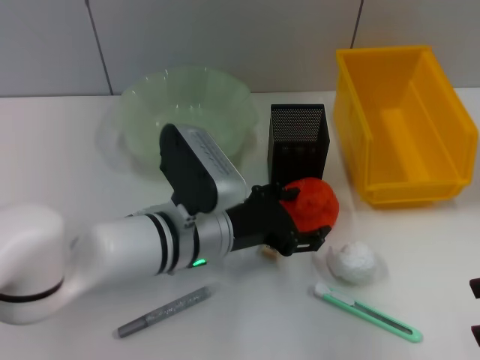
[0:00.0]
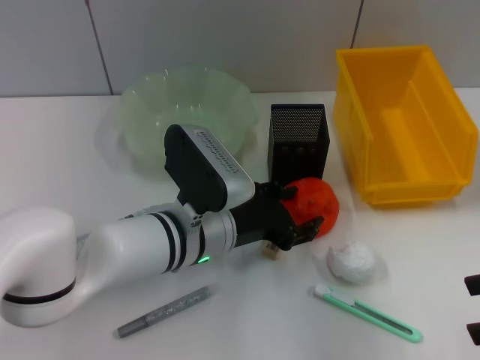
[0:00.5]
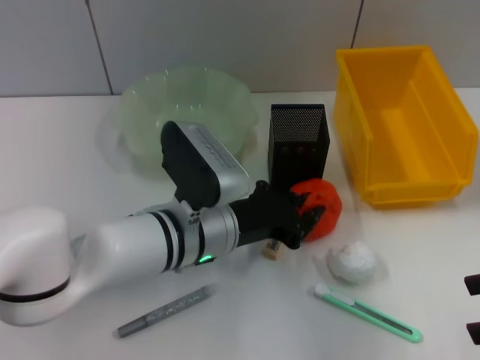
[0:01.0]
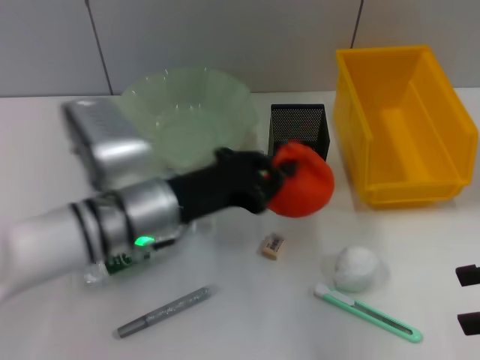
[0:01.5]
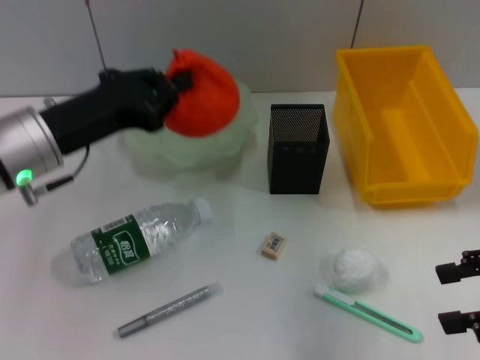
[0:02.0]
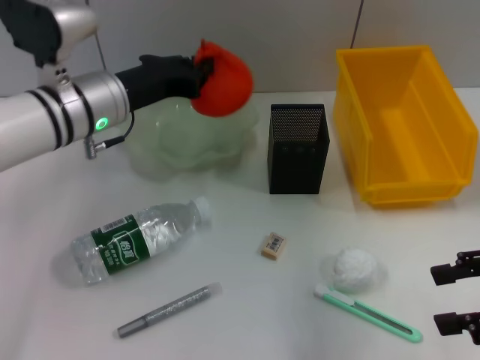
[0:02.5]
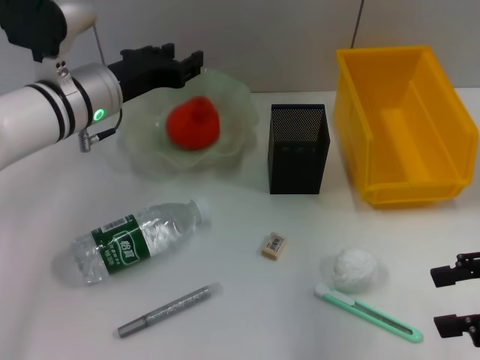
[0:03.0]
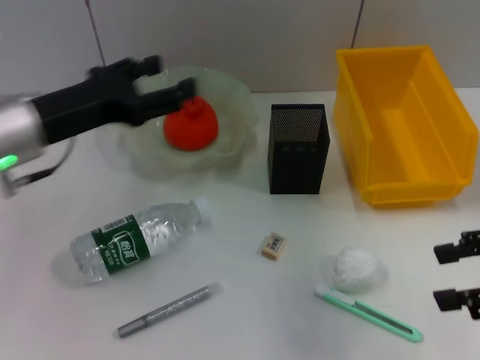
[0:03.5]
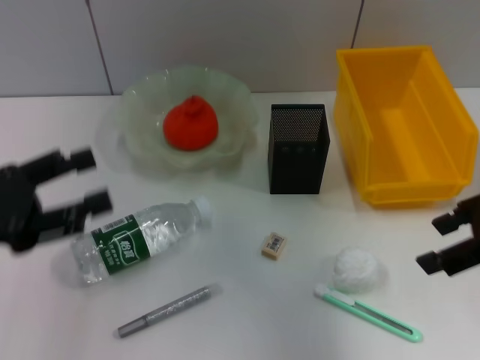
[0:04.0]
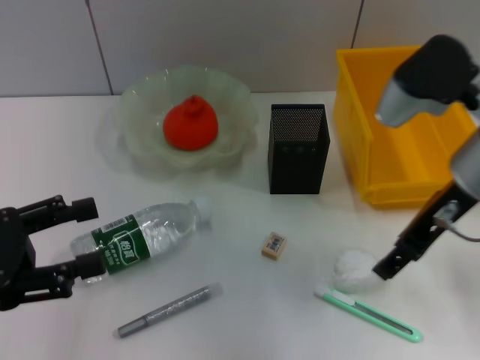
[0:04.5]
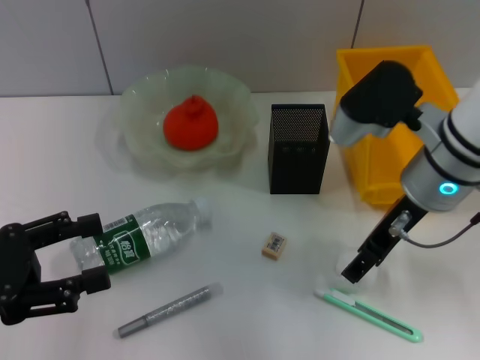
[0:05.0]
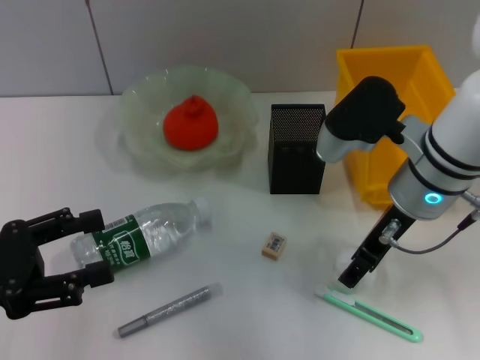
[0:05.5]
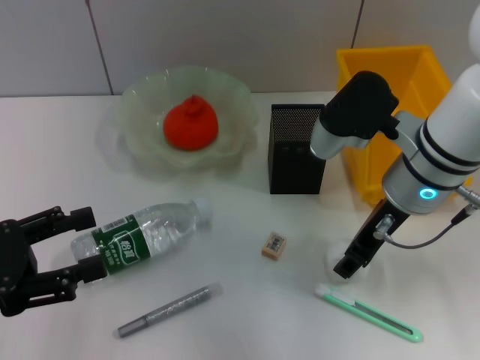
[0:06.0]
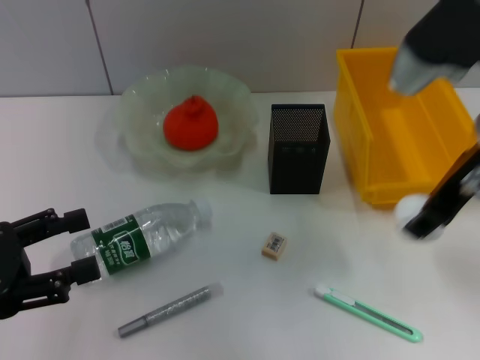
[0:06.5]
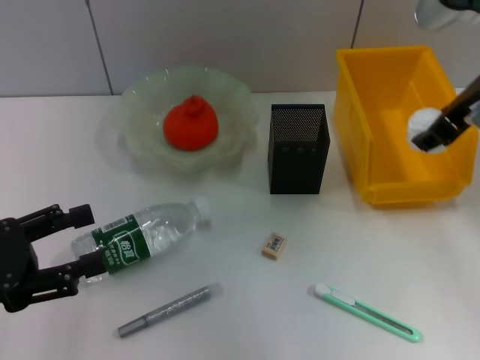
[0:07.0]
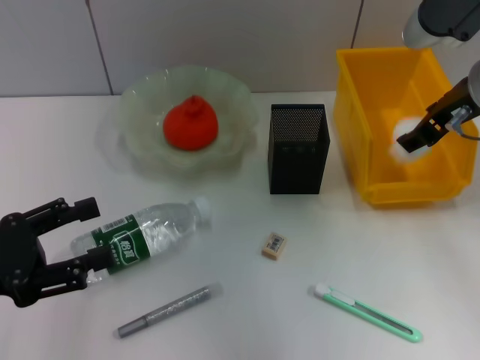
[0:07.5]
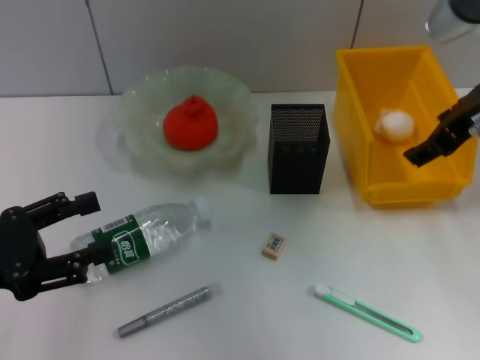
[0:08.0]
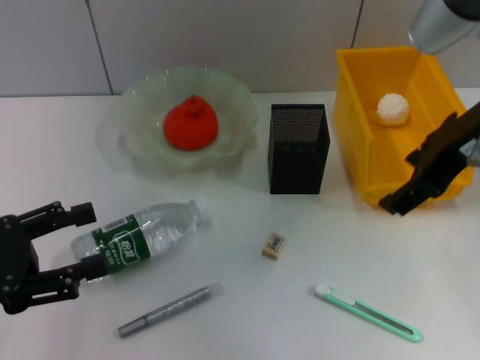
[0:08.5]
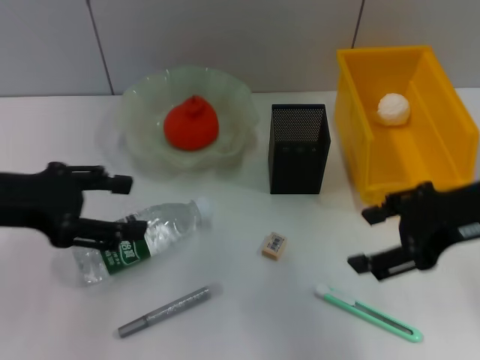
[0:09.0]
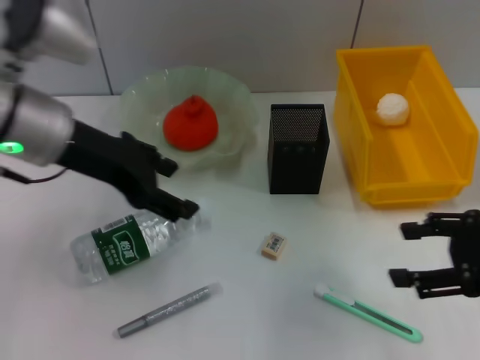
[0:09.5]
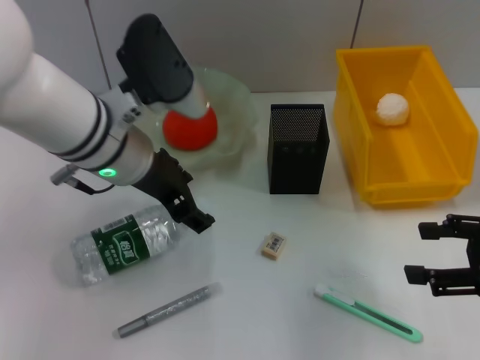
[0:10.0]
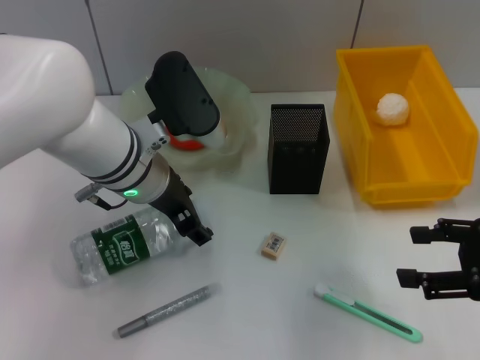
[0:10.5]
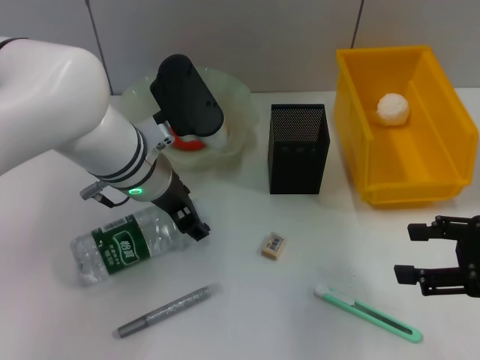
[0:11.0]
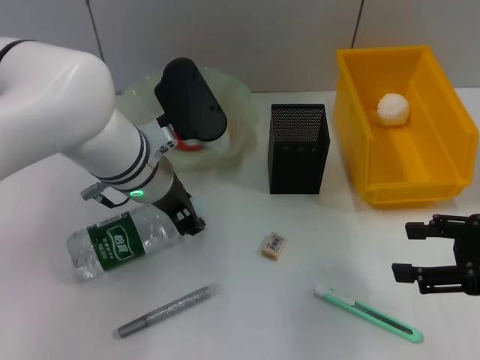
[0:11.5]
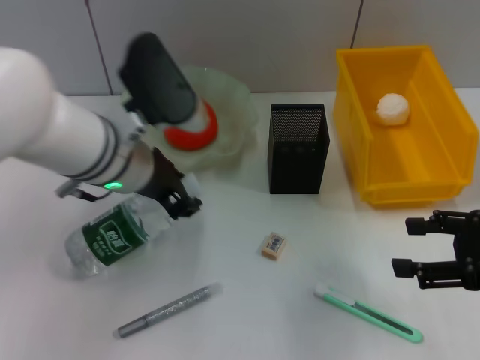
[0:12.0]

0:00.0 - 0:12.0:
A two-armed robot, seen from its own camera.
Step, 0:01.0 - 0:03.0: Place the orange into the fruit bowl with the left hand.
Step, 0:03.5 - 0:05.5: Grab the paper ball with the right hand.
Step, 0:06.0 - 0:07.5: Place the paper ball into the trash can with the right hand.
Step, 0:08.0 - 0:11.5: Grab the water bottle with the left hand.
0:00.0 - 0:02.0: The left gripper travels to the left and upward by some 15 cm, and closes its fingers.
0:02.0 - 0:04.0: The right gripper is displaced upward and to the left by roughly 10 cm; the left gripper goes some 15 cm to the left and backward, and opens its fingers.
0:04.0 - 0:06.0: The right gripper moves to the left, downward and forward, about 15 cm.
0:06.0 - 0:08.0: The right gripper travels upward and to the right by roughly 10 cm, and opens its fingers.
0:08.0 - 0:10.0: The left gripper travels to the right and forward by some 25 cm; the right gripper heads backward, downward and to the right, covering some 20 cm.
0:10.0 - 0:12.0: The left gripper closes up.

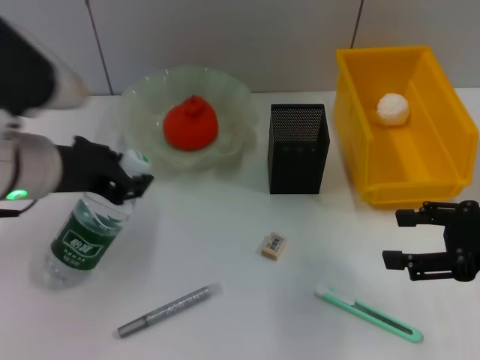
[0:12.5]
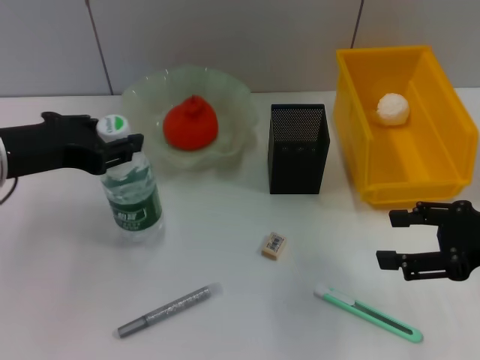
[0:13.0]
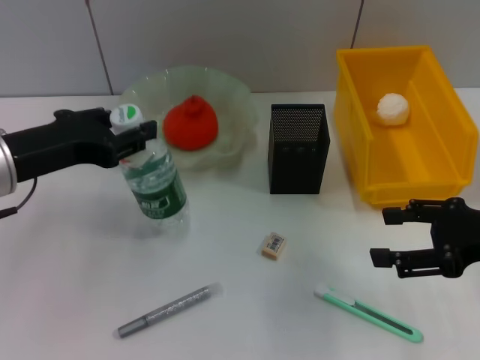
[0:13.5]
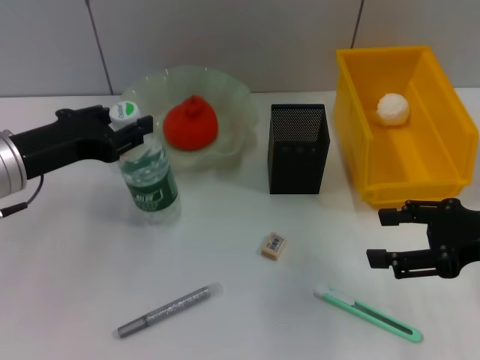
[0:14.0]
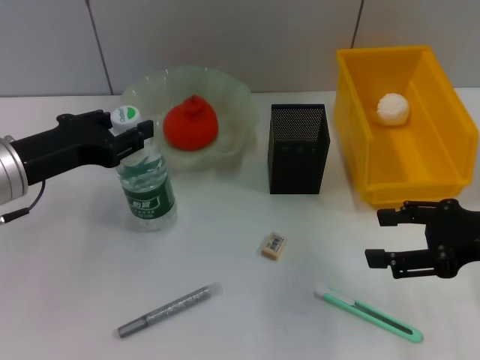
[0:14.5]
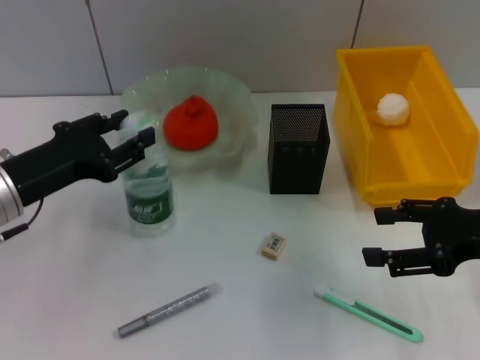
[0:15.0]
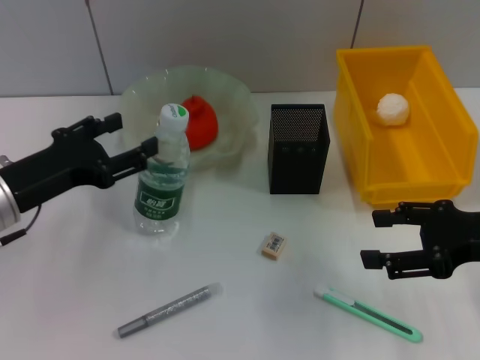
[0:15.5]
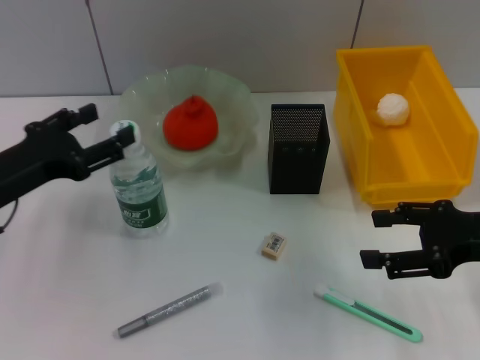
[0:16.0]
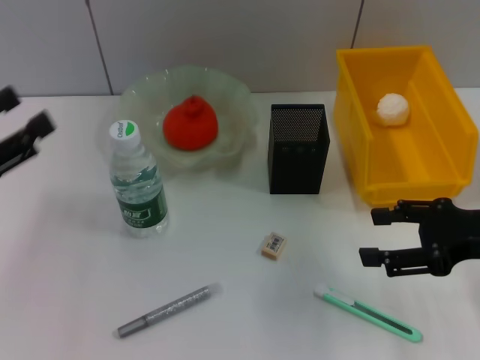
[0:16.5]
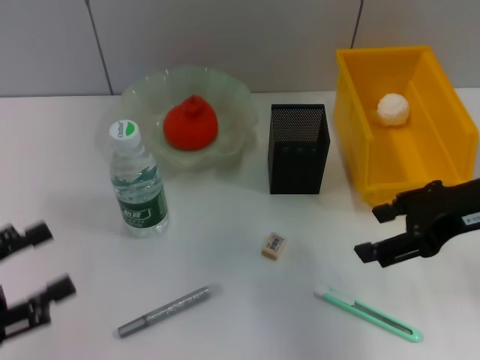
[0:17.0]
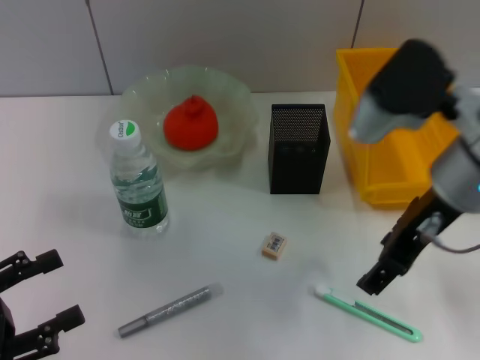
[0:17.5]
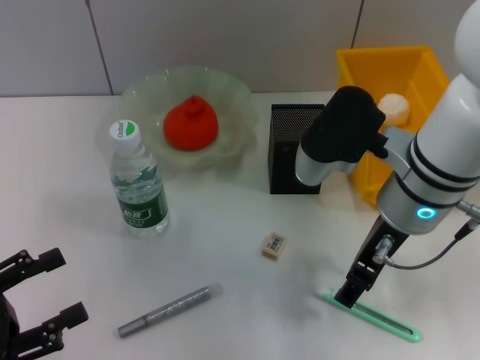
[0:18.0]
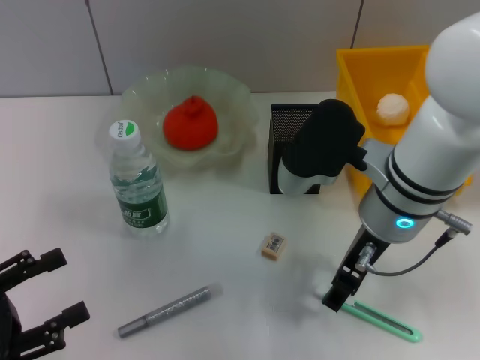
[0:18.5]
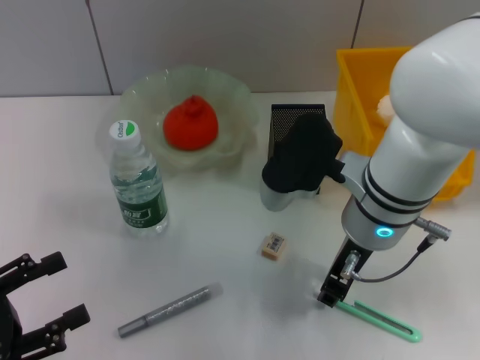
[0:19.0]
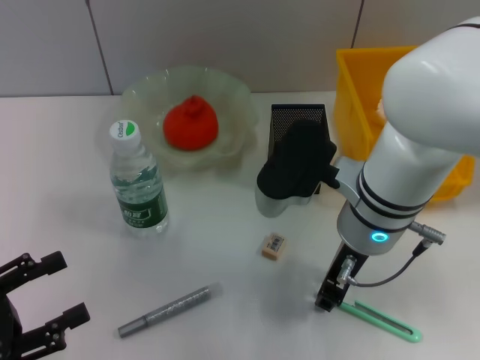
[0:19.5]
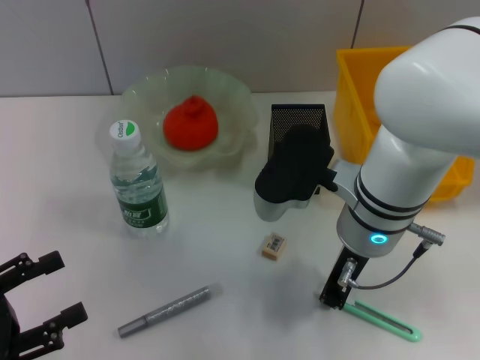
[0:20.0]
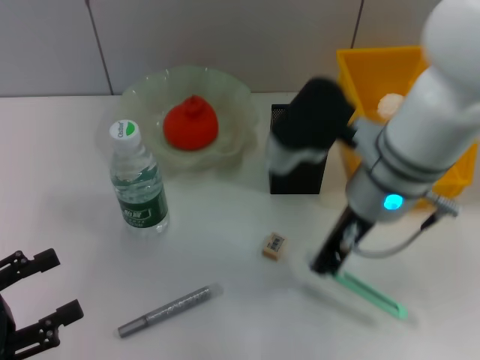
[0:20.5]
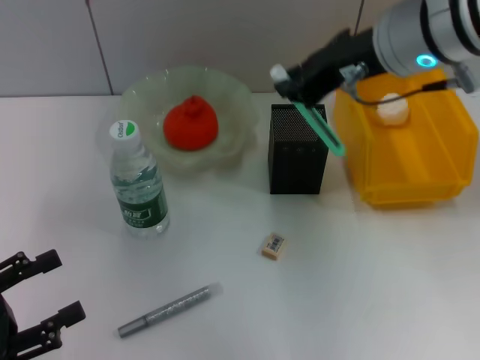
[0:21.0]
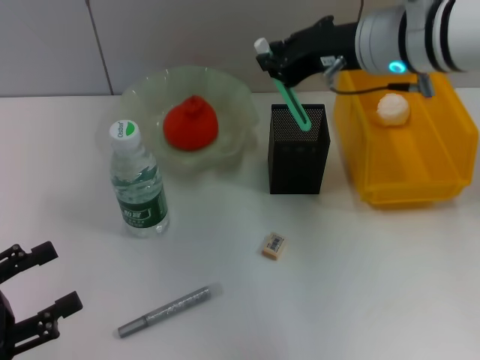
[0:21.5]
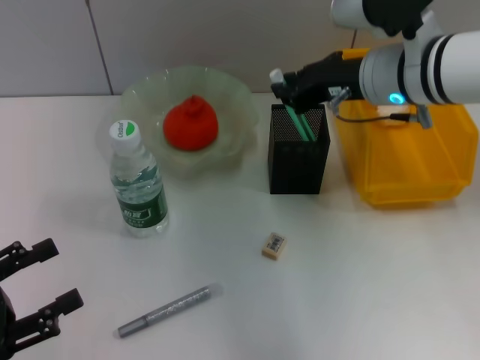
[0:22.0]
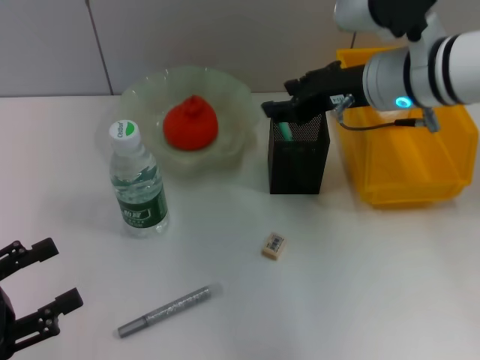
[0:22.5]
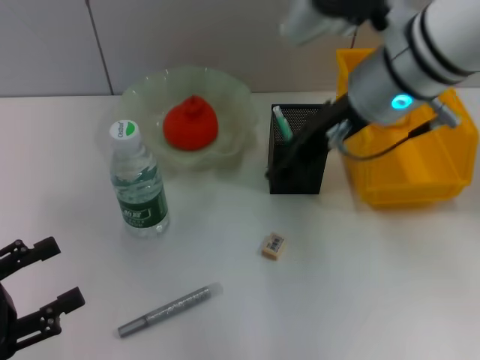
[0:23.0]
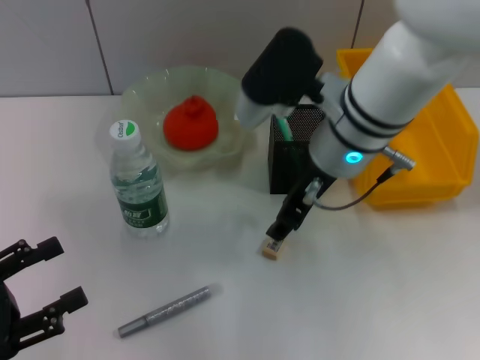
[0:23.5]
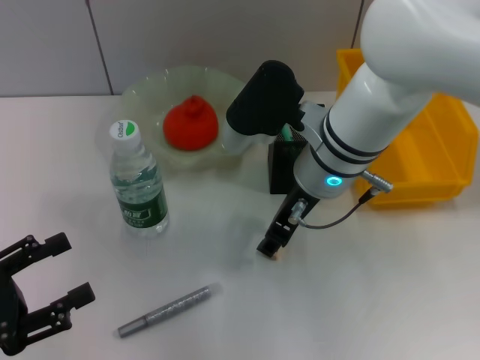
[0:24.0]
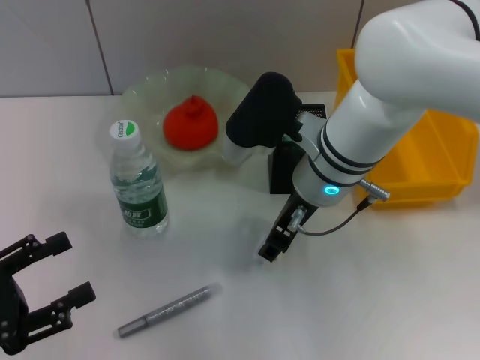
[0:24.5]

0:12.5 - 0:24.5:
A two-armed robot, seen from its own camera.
Step, 0:12.5 - 0:15.0: Place the water bottle on the table with the left hand.
Step, 0:15.5 - 0:20.0: Grab the blue utility knife with the right hand.
Step, 0:20.5 - 0:22.5: Place the blue utility knife into the pen holder with the right hand.
0:12.5 - 0:14.5: The left gripper travels to the left by roughly 5 cm.
0:14.5 - 0:16.5: The left gripper travels to the left and backward by roughly 10 cm, and opens.
0:16.5 - 0:18.5: The right gripper is displaced to the left by roughly 15 cm. Meanwhile the left gripper is displaced backward and downward by some 10 cm.
0:18.5 - 0:20.5: The right gripper closes.
0:20.5 - 0:22.5: The right gripper travels forward by some 5 cm, and travels upward and back again, approximately 10 cm each way.
0:22.5 - 0:24.5: The right gripper is displaced to the left and downward by roughly 10 cm, and opens its fingers.

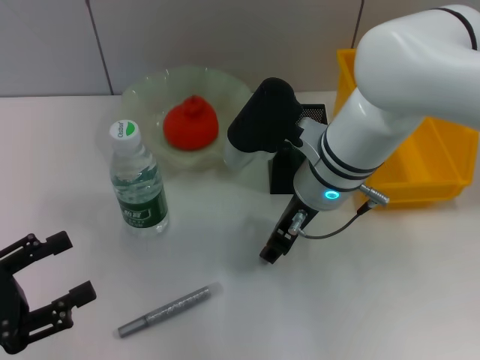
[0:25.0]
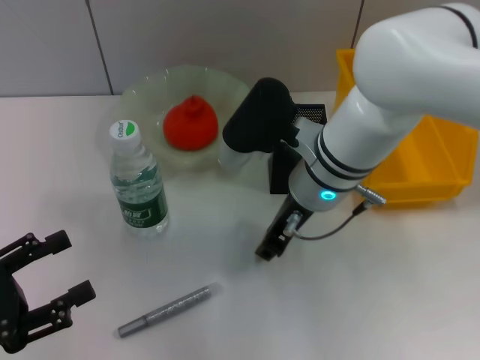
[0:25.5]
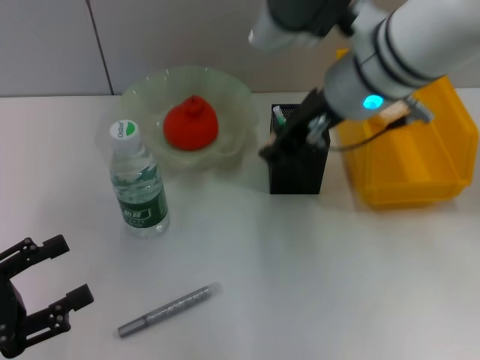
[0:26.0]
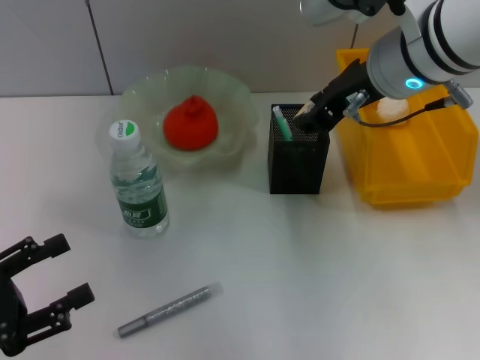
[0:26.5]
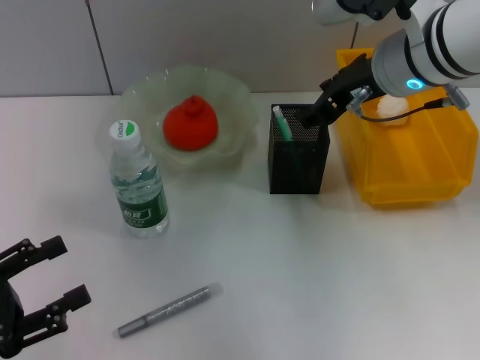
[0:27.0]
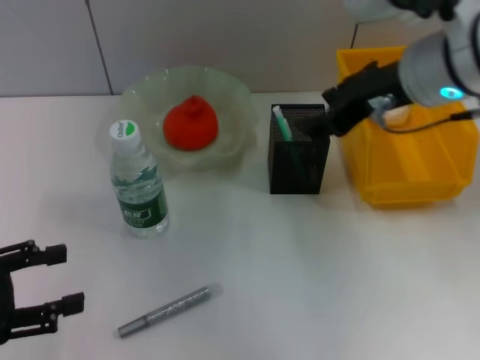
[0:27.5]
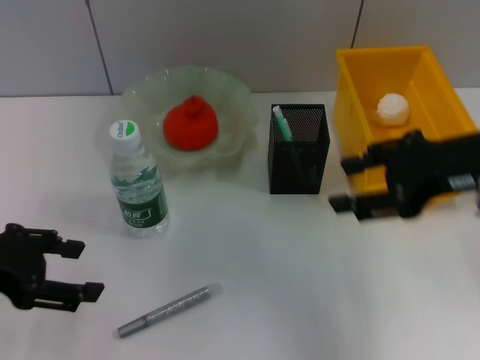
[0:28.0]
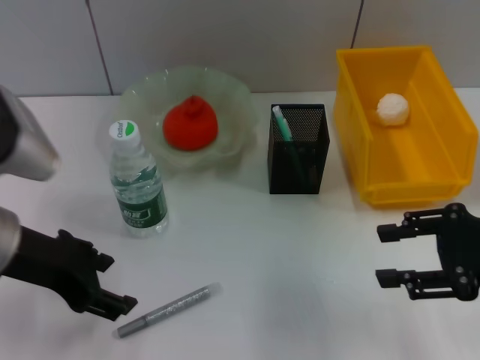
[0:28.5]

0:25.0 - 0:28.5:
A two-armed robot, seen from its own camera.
Step, 0:25.5 - 0:27.0: Put the eraser into the pen holder with the right hand.
0:25.0 - 0:27.0: The right gripper shifts some 10 cm upward and to the right.
0:27.0 - 0:28.5: The left gripper moves forward, to the right and upward, some 20 cm. The right gripper is displaced to the right, backward and downward by about 20 cm.
